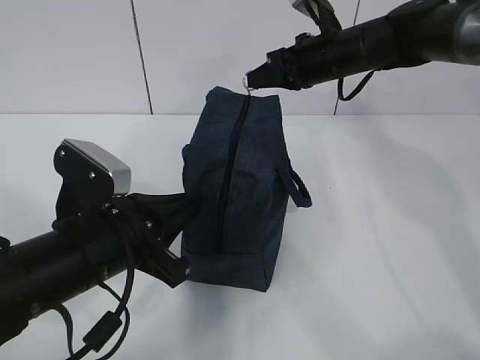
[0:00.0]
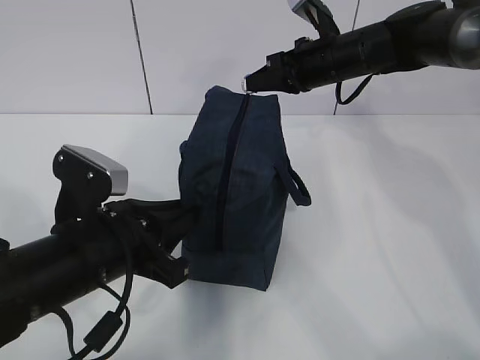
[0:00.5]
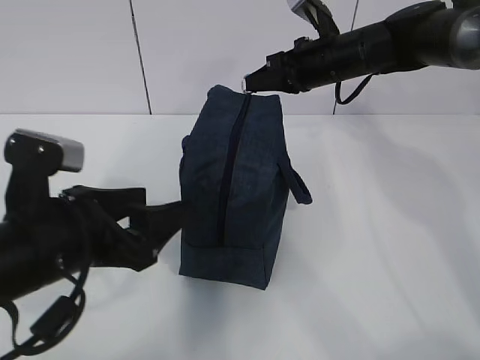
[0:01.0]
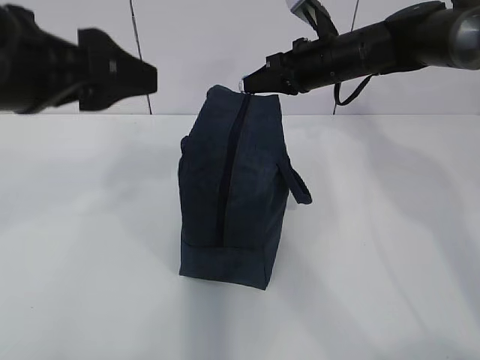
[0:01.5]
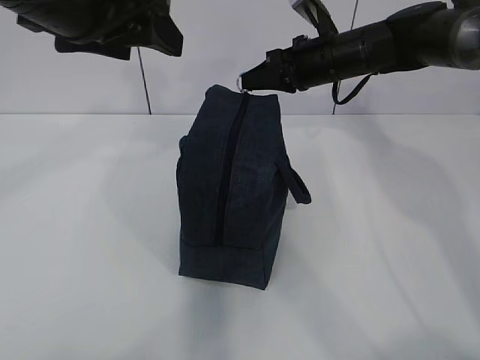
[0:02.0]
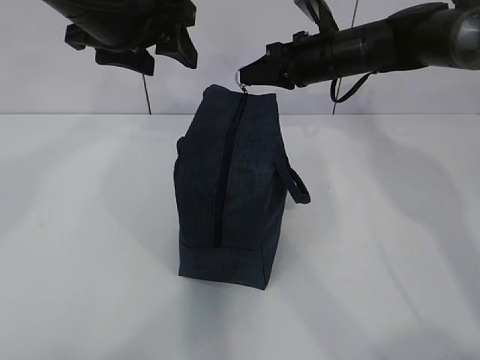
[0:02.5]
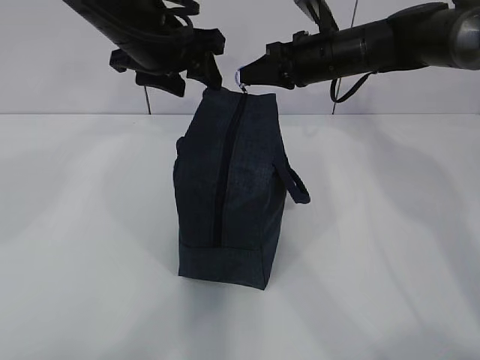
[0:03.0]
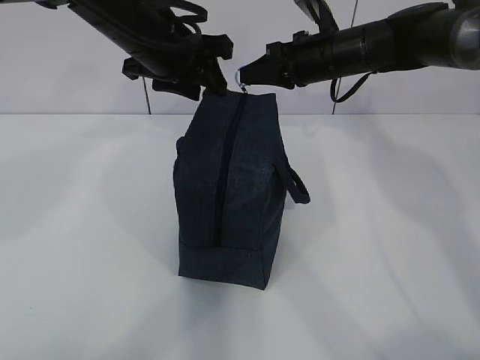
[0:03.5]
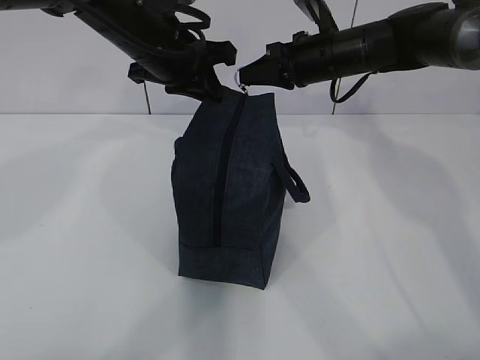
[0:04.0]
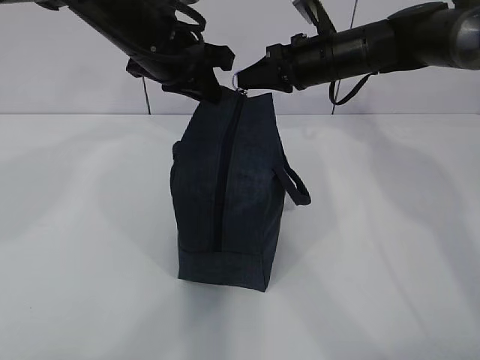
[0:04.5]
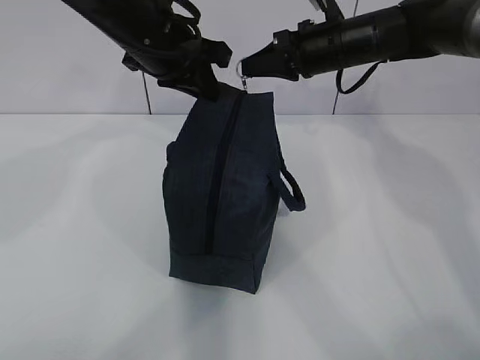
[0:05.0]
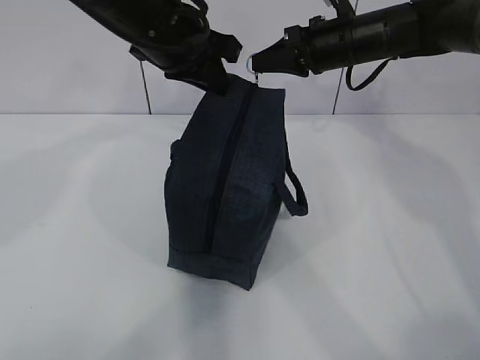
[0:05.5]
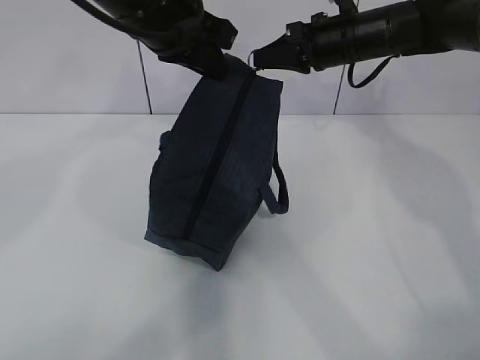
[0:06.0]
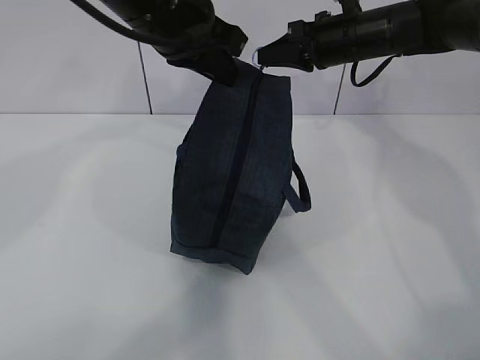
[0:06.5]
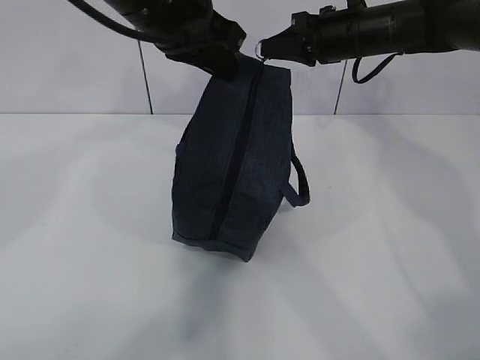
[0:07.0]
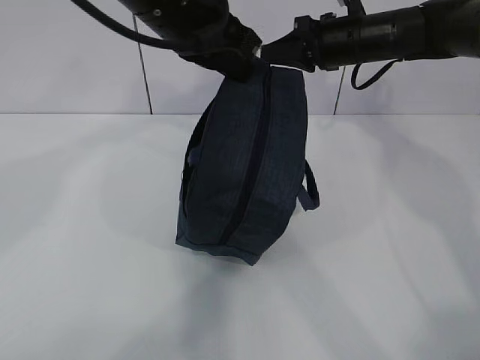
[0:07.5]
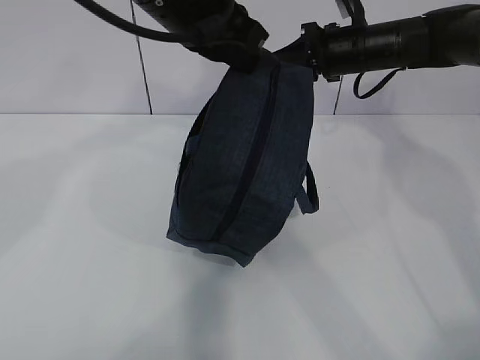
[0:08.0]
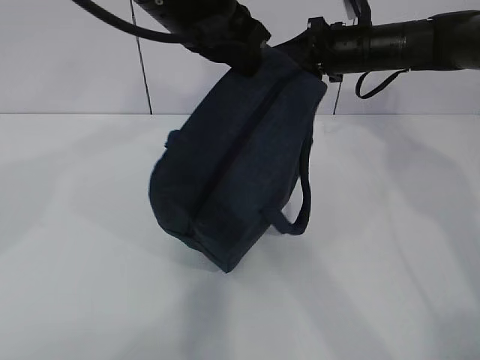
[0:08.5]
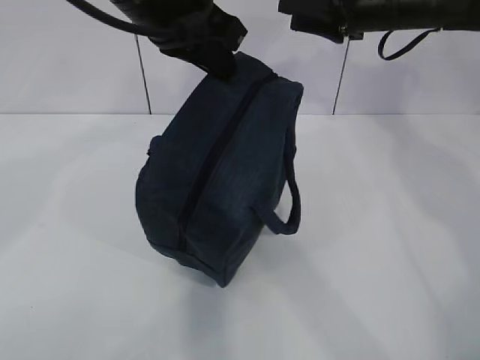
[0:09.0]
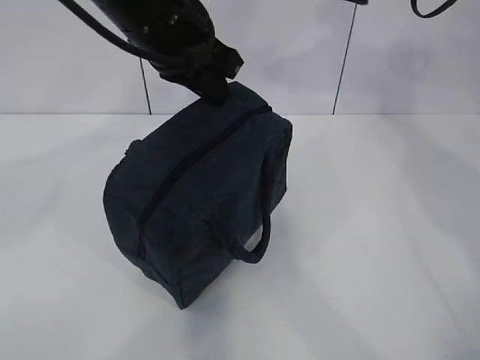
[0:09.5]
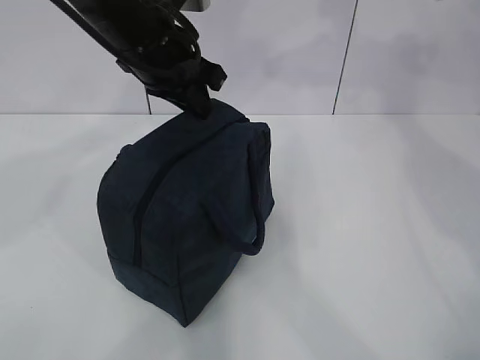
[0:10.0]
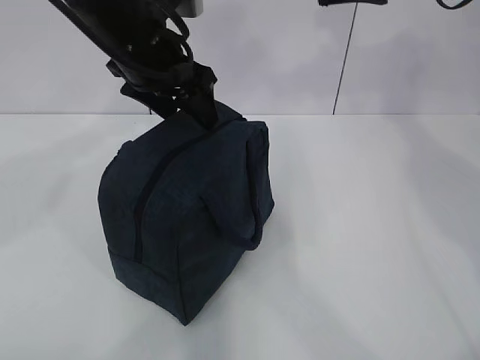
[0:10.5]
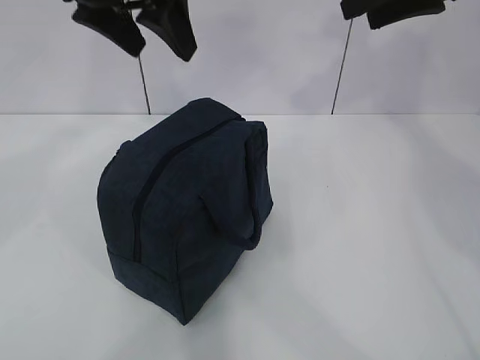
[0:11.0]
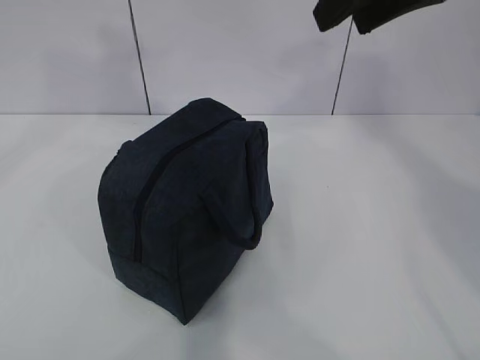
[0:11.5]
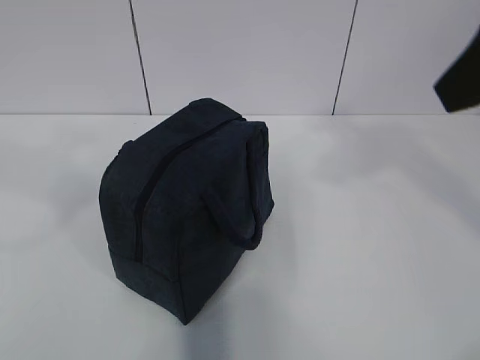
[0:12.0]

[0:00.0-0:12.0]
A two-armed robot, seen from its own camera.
0:00.0 to 0:02.0: The left gripper goes roughly 20 cm upward, and opens.
0:02.0 to 0:04.0: The left gripper shifts roughly 15 cm forward and downward, and closes up.
0:04.0 to 0:06.0: The left gripper shifts about 5 cm upward.
0:06.0 to 0:08.0: The left gripper shifts by roughly 5 cm.
0:08.0 to 0:10.0: The left gripper travels downward by roughly 5 cm, while the right gripper shifts roughly 15 cm upward and backward, and opens.
0:10.0 to 0:12.0: The right gripper heads backward, covering roughly 25 cm. Meanwhile the left gripper is displaced backward, to the left and upward by some 30 cm, and opens its fingers.

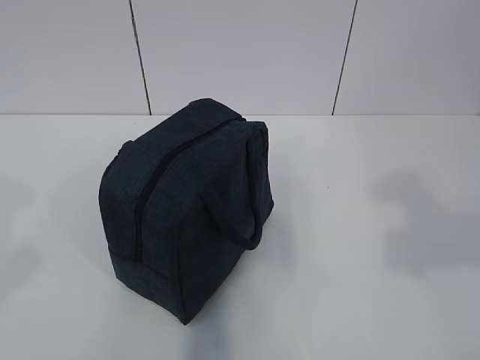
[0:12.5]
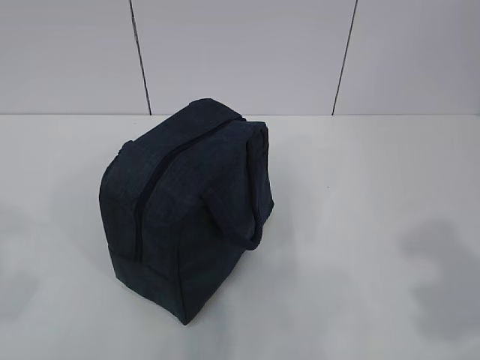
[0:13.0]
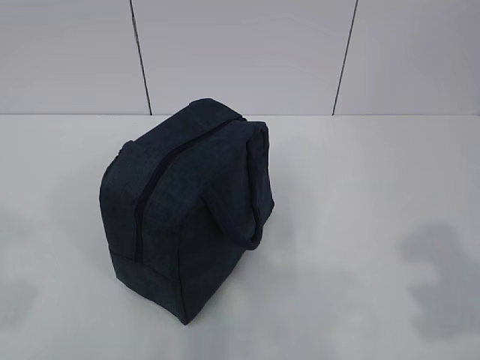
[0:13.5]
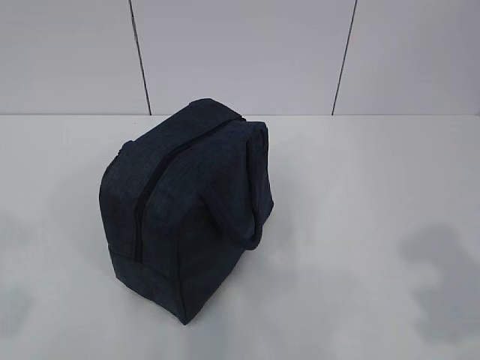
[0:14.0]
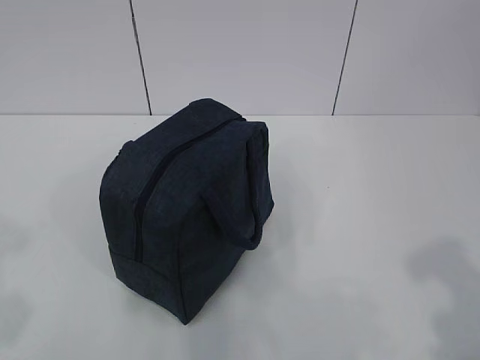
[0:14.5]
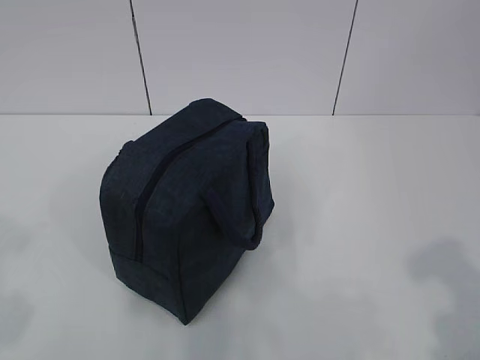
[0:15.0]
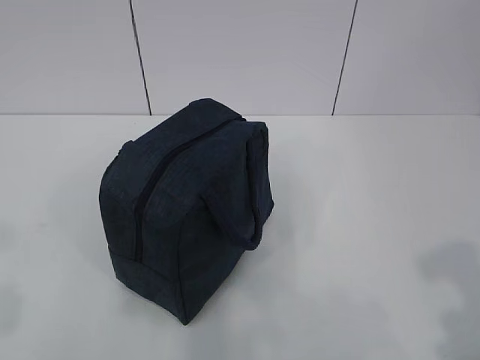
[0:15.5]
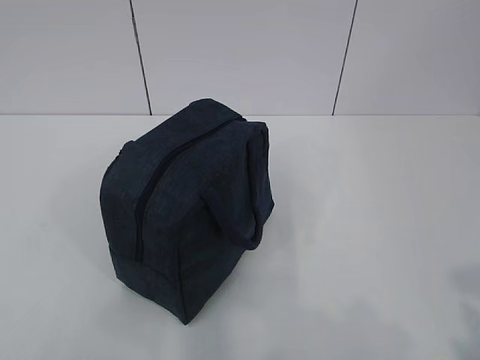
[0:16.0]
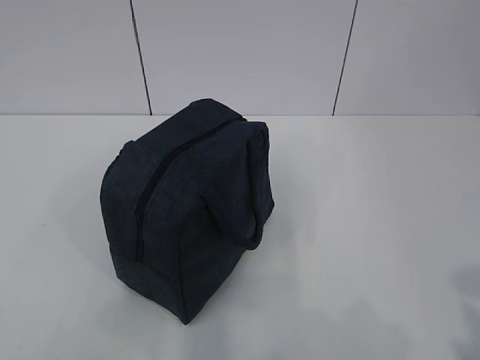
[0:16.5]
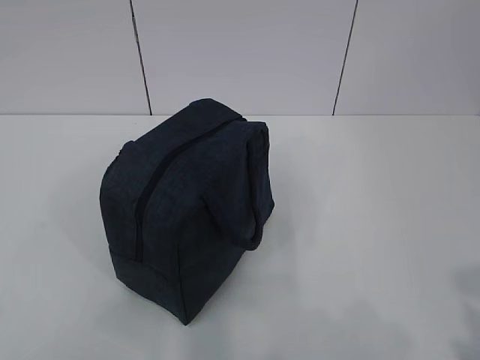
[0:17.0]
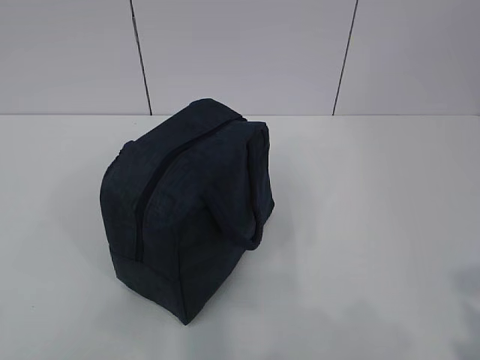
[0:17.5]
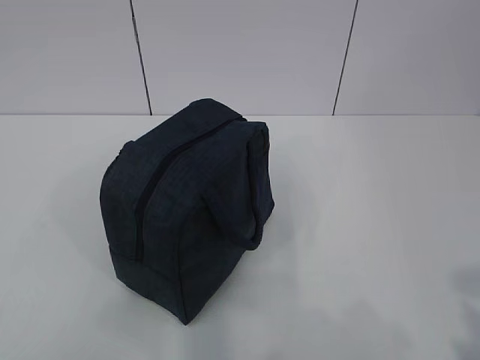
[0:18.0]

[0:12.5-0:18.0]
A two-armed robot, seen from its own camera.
0:16.0 to 0:18.0: Both grippers stay put.

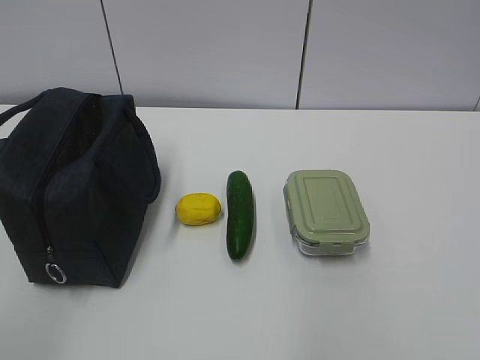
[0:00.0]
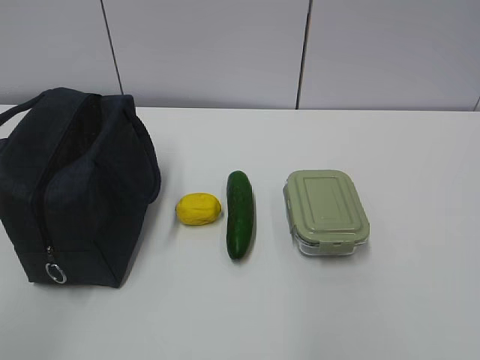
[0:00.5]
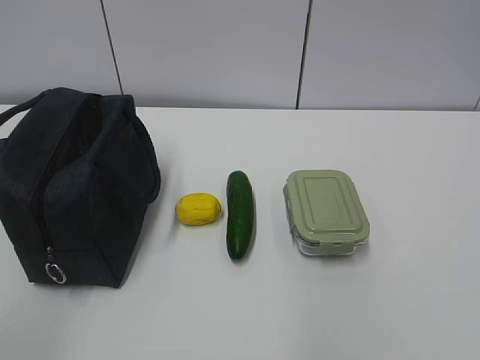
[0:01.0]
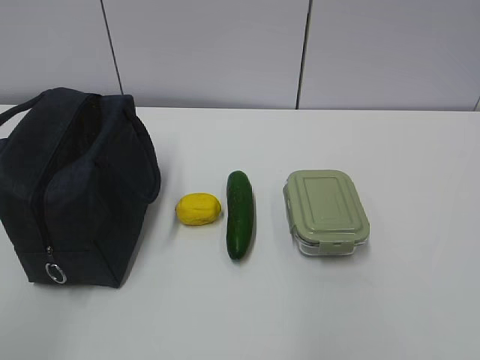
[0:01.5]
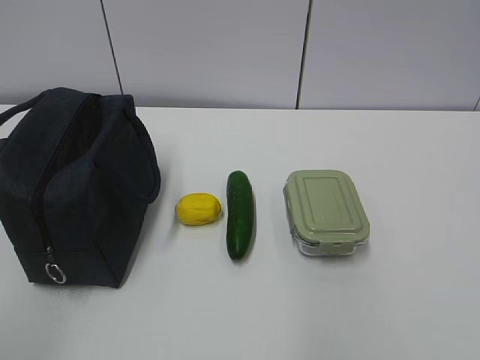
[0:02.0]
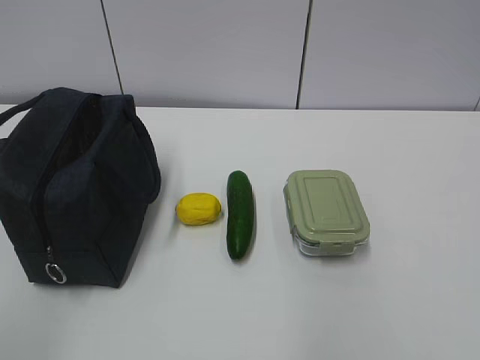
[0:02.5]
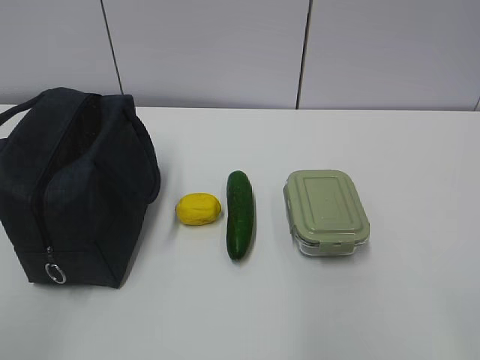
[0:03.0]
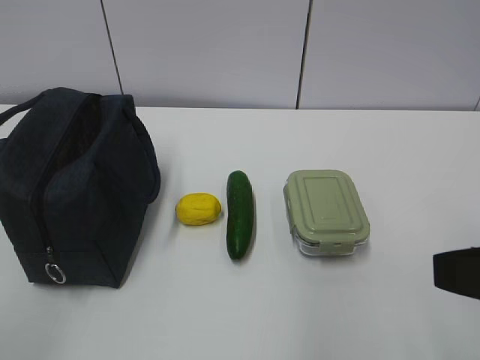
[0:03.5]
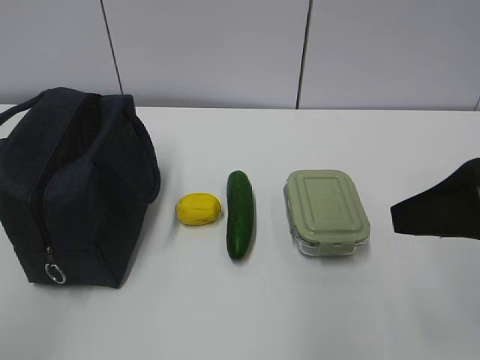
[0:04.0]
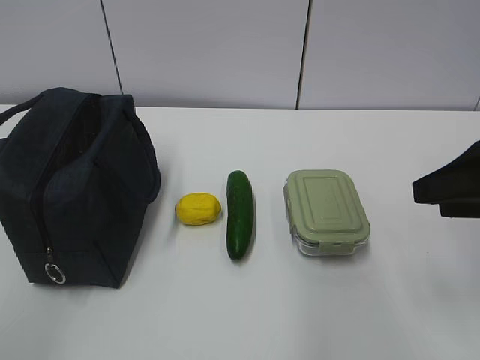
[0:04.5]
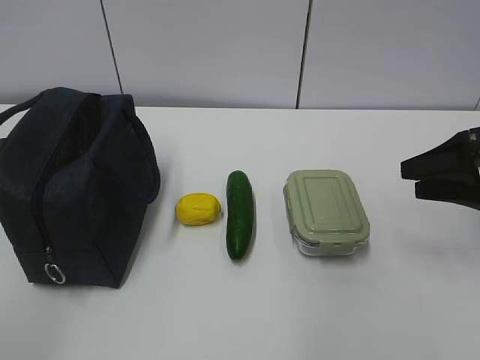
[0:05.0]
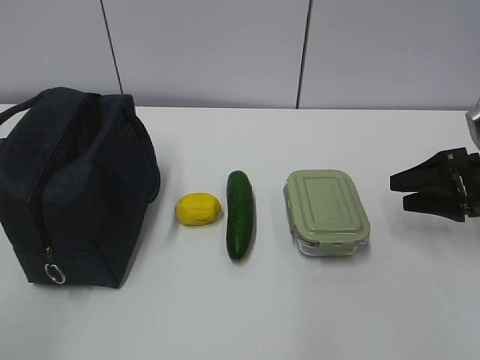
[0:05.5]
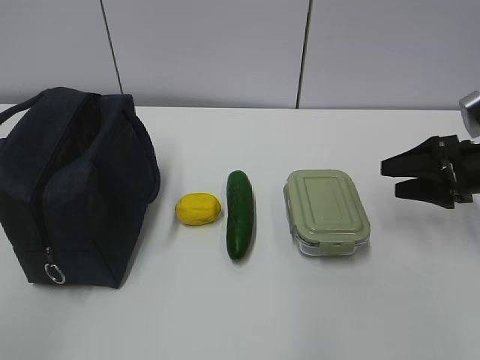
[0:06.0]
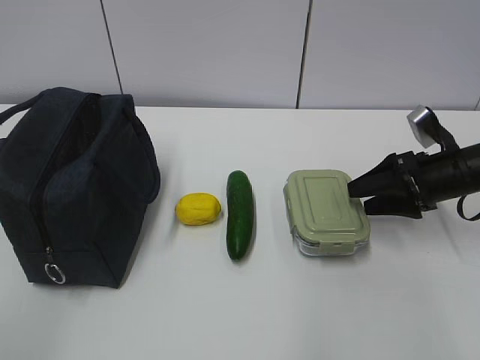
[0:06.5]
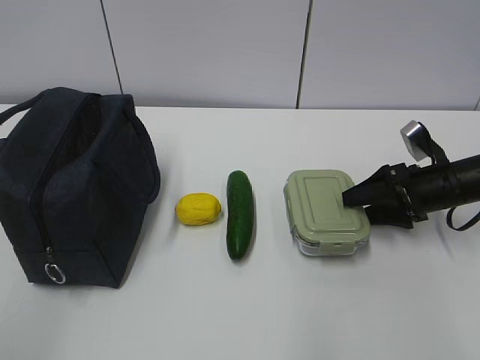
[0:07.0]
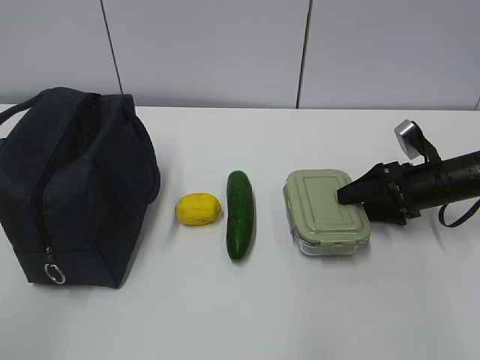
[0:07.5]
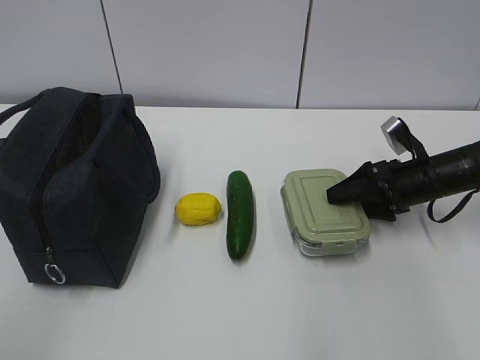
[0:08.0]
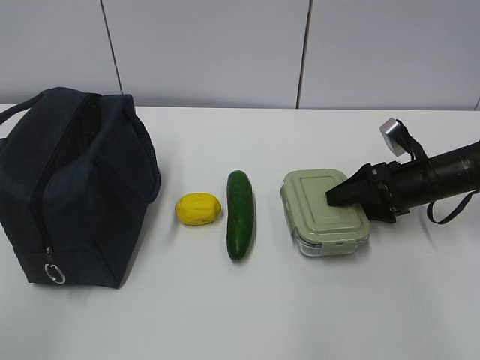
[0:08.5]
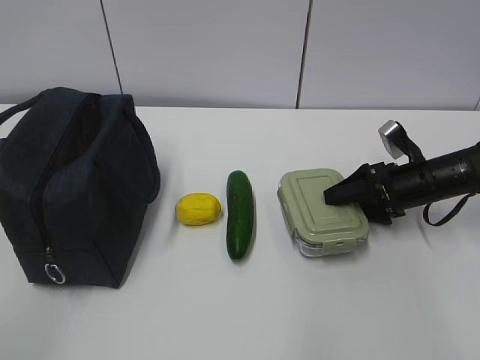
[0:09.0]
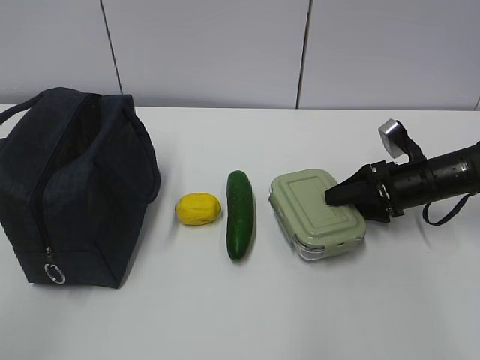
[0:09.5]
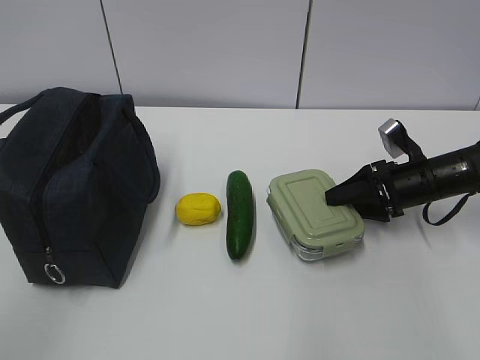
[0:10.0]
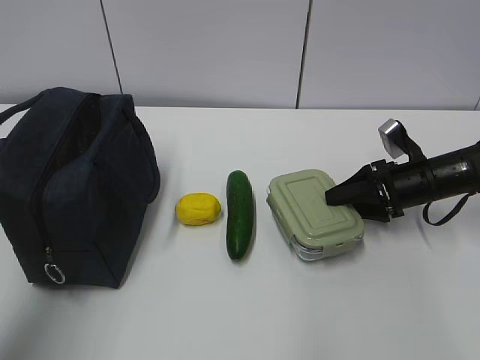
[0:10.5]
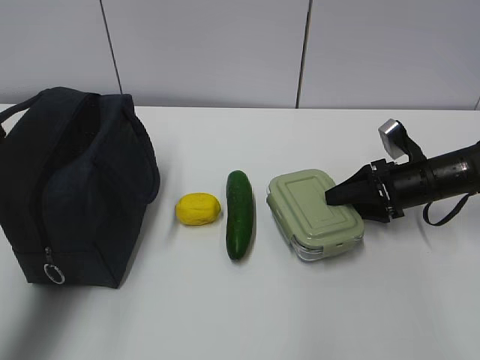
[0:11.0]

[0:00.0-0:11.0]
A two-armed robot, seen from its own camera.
Step, 0:00.0 to 0:10.5: Grab the lunch box with your right hand.
0:02.0 to 0:03.5: The right gripper shifts about 10 cm forward.
0:03.5 to 0:05.5: The right gripper shifts some 30 cm forward, downward and to the right.
0:05.5 to 0:07.5: The right gripper moves forward and downward, about 5 cm.
0:07.5 to 0:09.0: The grippers make only small movements.
0:09.0 to 0:11.0: The left gripper travels forward by about 25 cm.
